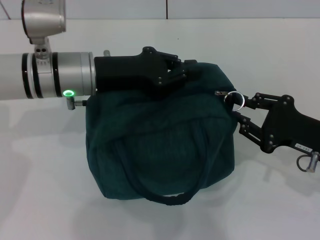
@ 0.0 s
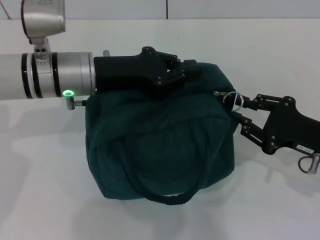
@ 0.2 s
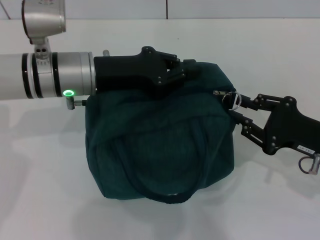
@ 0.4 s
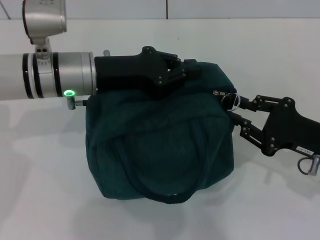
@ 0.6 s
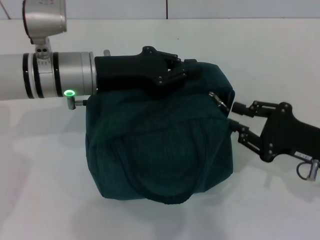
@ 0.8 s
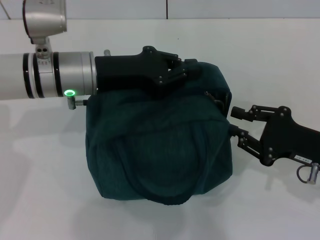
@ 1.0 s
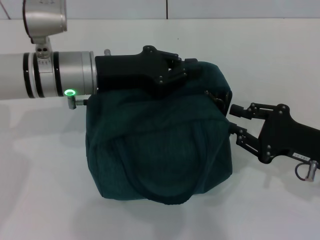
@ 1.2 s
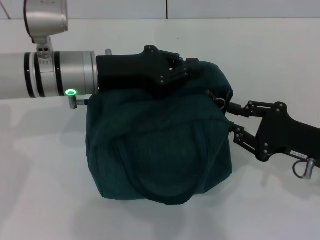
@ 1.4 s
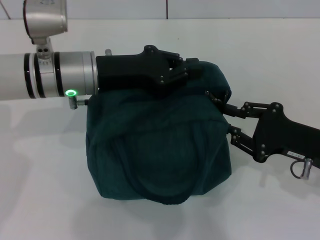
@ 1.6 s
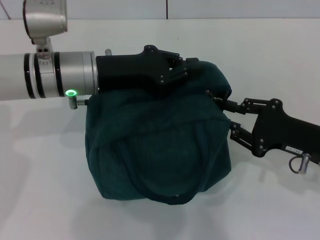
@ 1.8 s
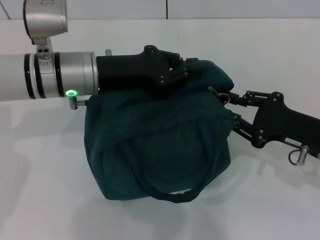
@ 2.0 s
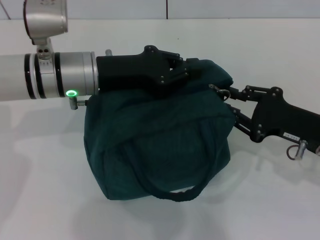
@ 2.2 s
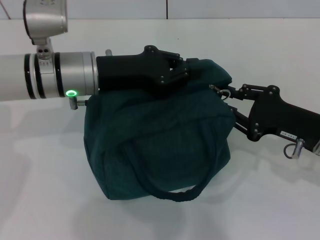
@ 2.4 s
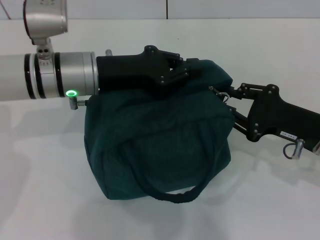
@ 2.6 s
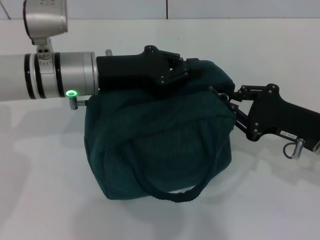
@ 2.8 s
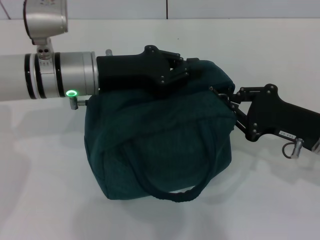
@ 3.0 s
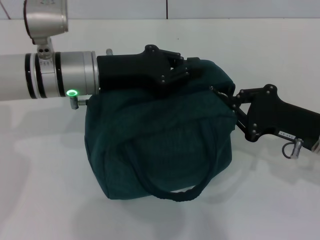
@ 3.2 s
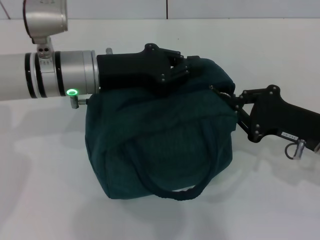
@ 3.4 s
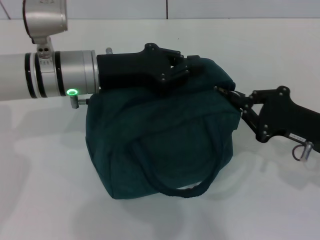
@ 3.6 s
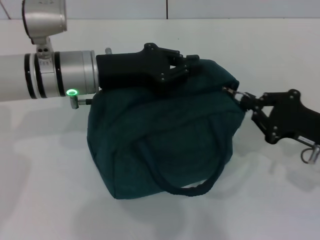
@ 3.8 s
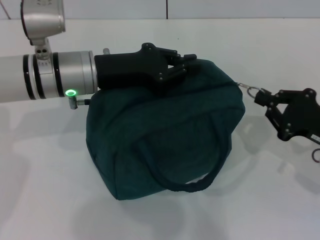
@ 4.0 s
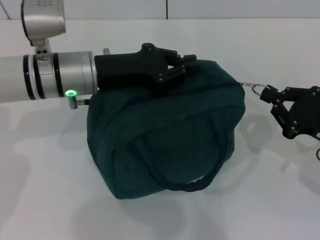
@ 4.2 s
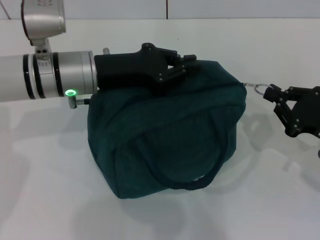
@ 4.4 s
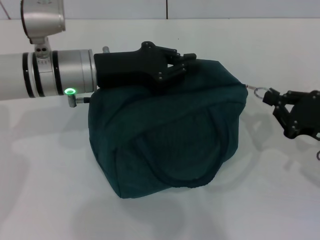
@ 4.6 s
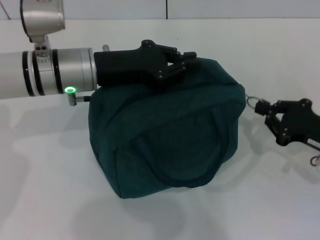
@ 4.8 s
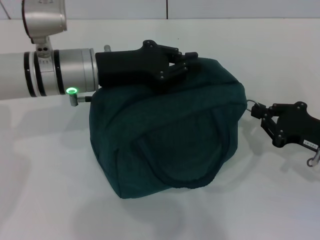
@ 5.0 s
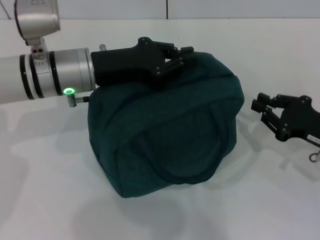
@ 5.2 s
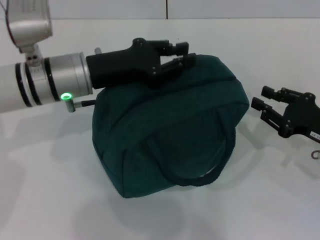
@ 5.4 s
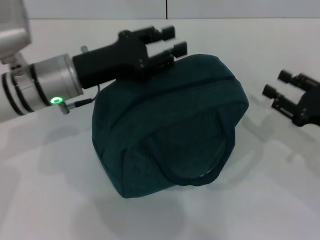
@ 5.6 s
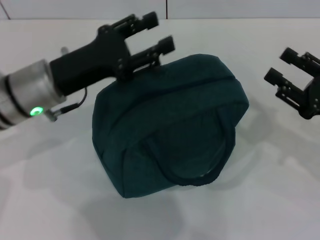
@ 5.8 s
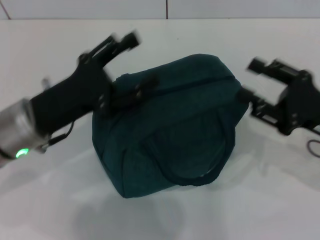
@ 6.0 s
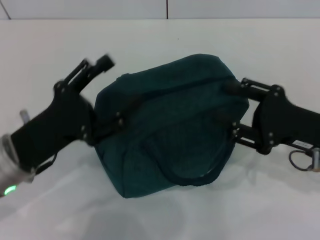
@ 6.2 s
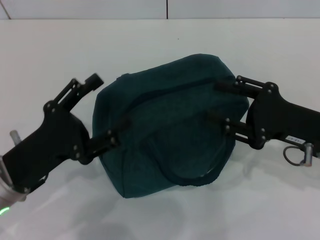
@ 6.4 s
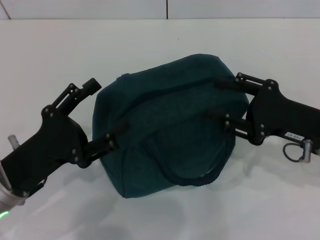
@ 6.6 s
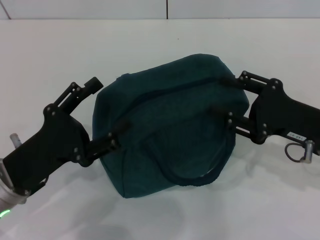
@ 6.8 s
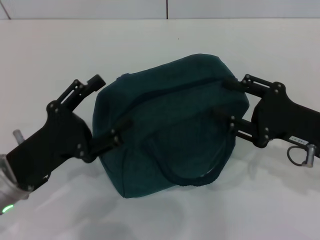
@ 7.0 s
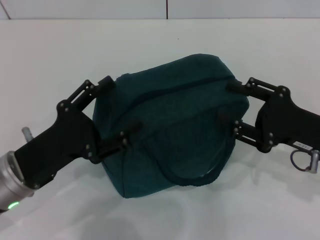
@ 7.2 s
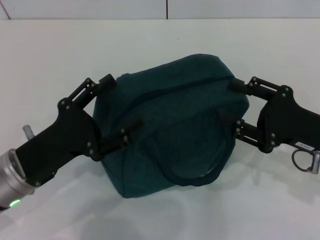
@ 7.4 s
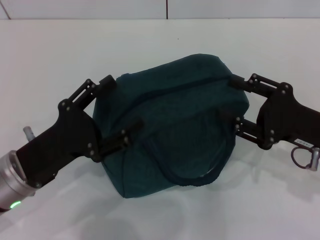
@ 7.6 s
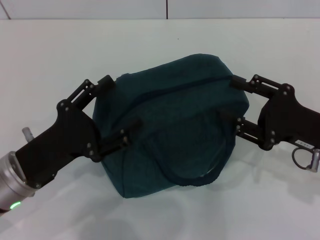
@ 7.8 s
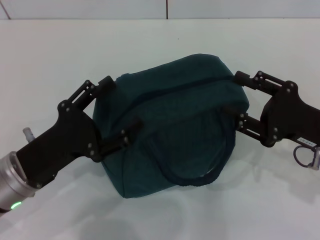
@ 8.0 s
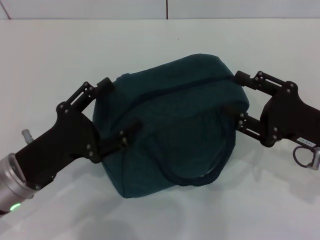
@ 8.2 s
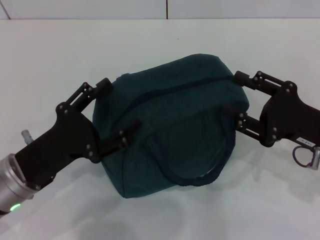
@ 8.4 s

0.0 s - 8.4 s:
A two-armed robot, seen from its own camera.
Step, 0.0 s - 5.0 s: Zip up the lunch bag with your right hand.
Step, 5.2 s - 5.6 s: Hold the lunch bag with your left hand.
0.0 s - 1.4 s: Both grippers stay put.
1.4 s - 2.8 s: There are only small adjustments of the grippers.
2.8 s - 4.2 s: The right gripper moves about 5 cm.
4.2 s - 5.6 s: There are only small adjustments of the grippers.
5.6 s - 7.0 s: The right gripper is displaced to the left by some 5 cm, and opens up. The left gripper is displaced backward, downward and to the left by approximately 15 cm, and opens its fingers.
7.0 s - 8.4 s: There are only small adjustments of the grippers.
